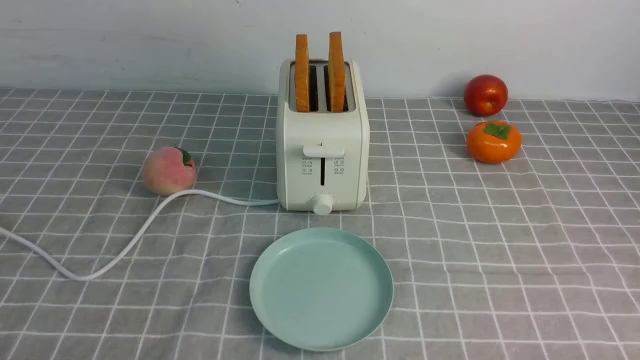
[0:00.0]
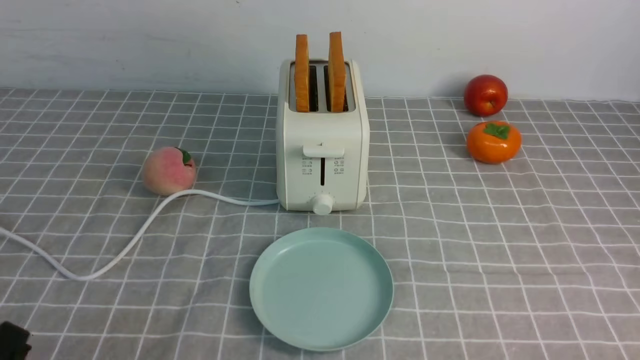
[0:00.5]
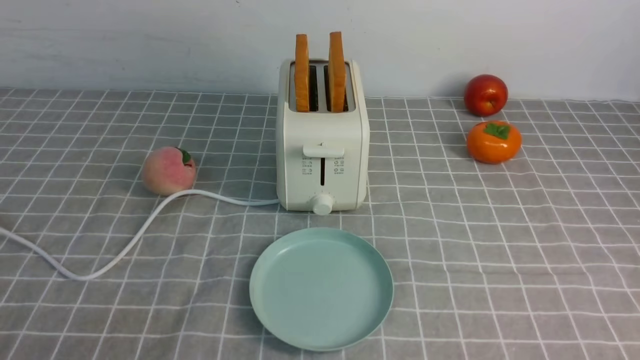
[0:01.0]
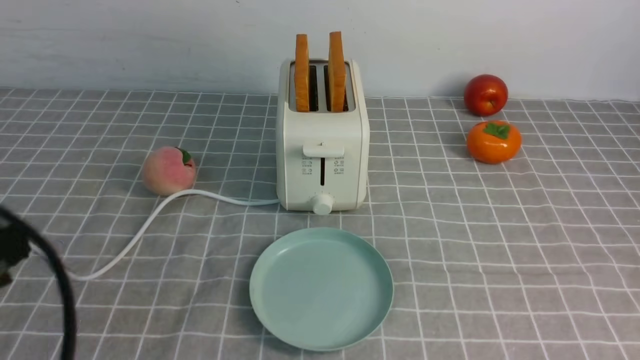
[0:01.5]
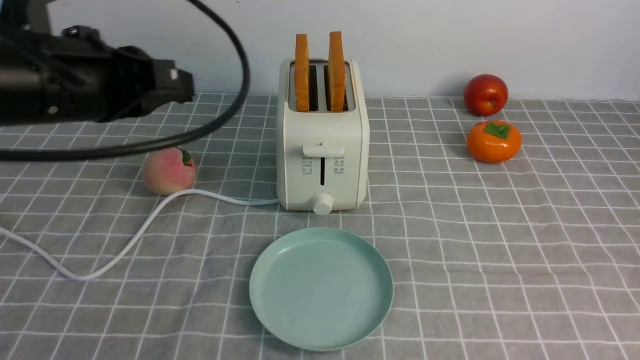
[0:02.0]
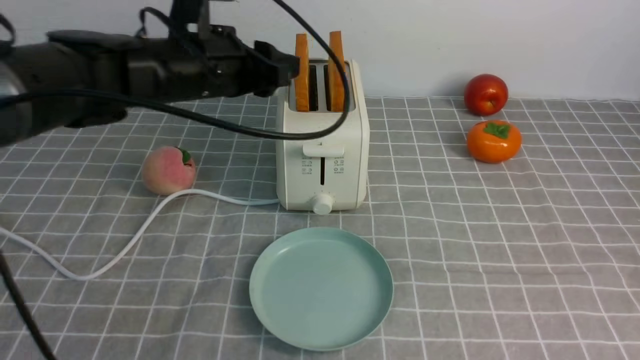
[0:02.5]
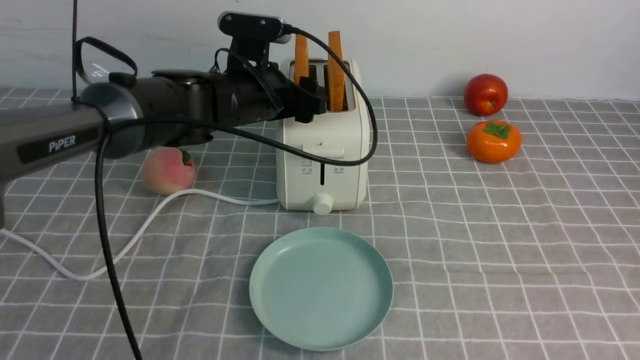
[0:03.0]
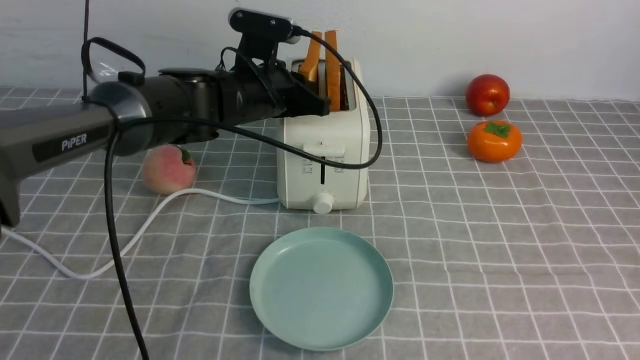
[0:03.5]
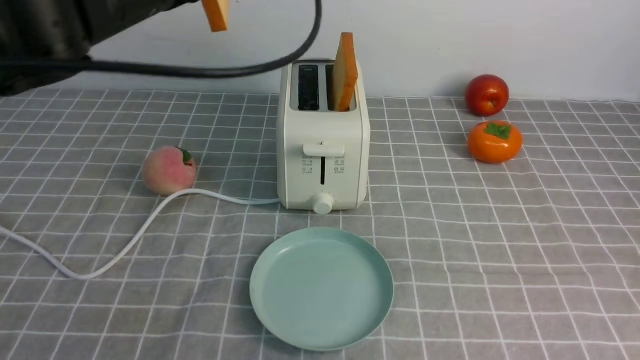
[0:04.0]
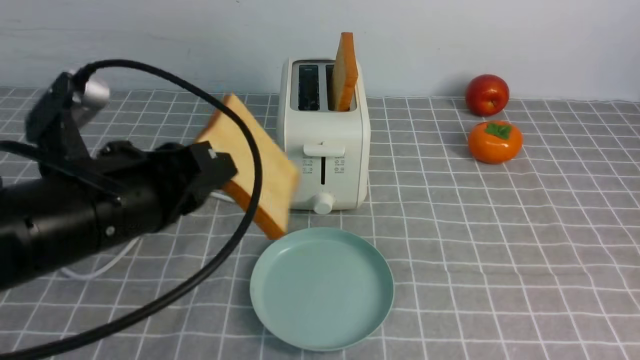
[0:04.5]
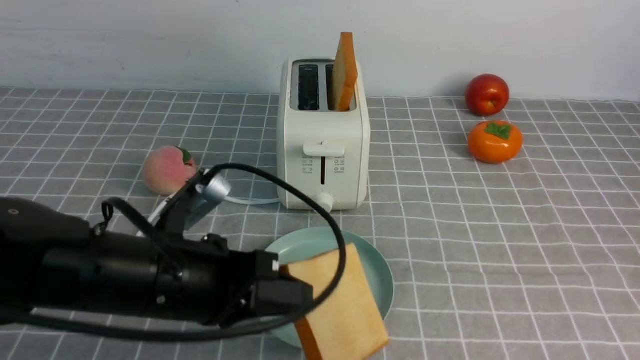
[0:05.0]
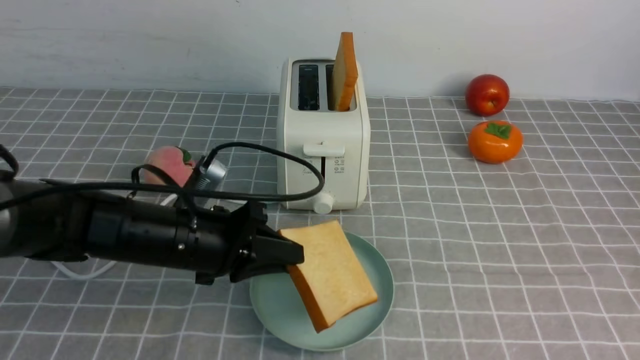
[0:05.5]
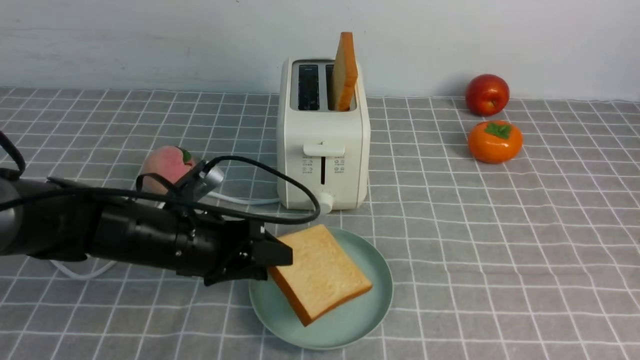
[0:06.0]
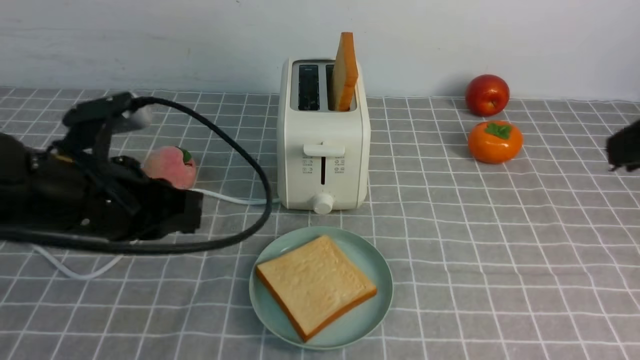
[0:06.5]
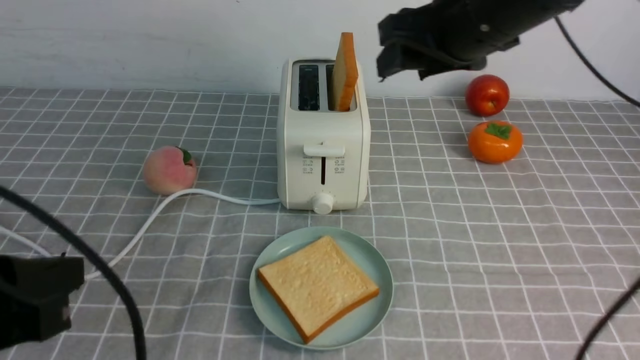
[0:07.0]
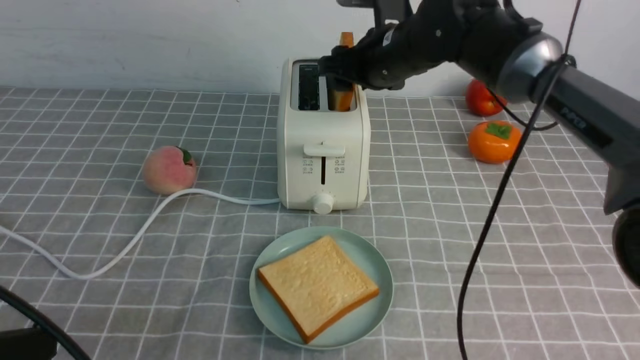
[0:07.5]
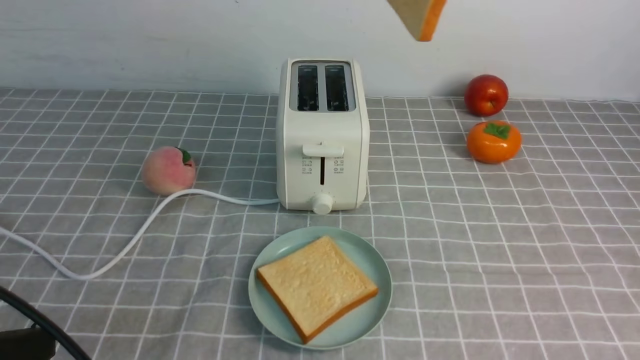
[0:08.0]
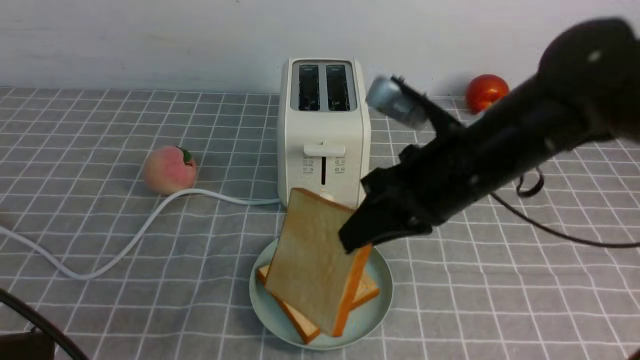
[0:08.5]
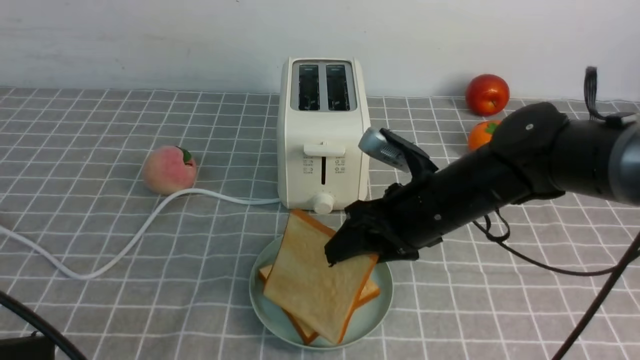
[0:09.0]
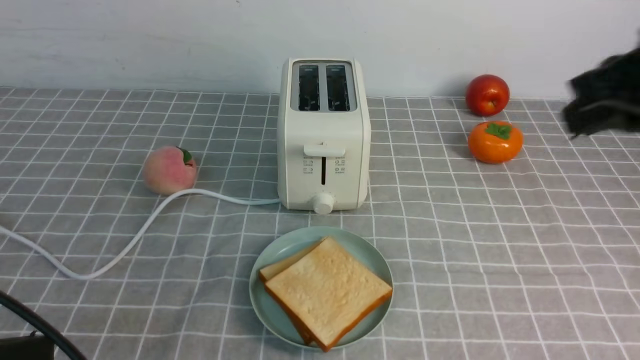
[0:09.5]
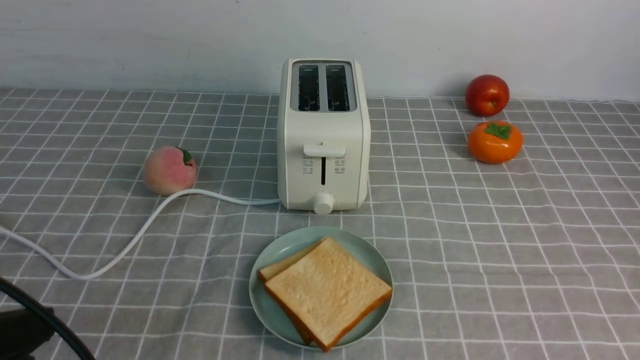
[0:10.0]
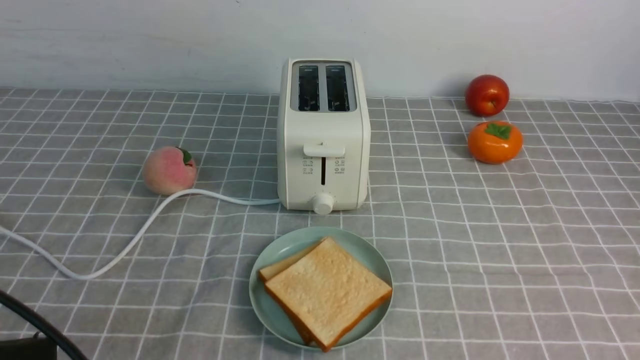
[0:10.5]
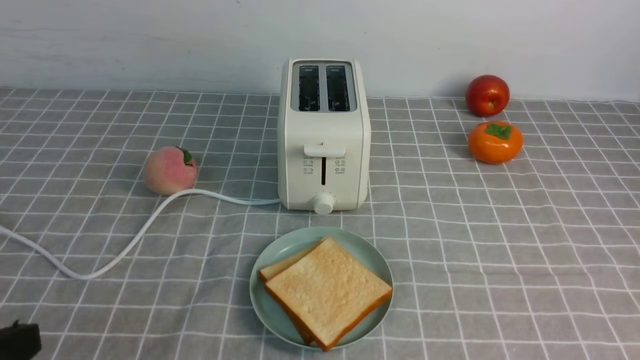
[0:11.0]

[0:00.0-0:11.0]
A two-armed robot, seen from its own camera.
Task of the whole recording: take toasted bread from bread machine on grey coffee table place on plate.
Step, 0:00.0 to 0:03.5: use the left arm to take out a slice of bread.
Step, 0:04.0 to 0:06.0: use the left arm to put a slice of bread into the empty plate.
Step, 0:06.5 to 0:07.5: use the right arm to take out a slice of bread.
Step, 0:08.0 to 0:09.0: use the right arm to put a slice of bread into the plate.
0:02.0 to 0:03.5: The left gripper heads forward, to the right and downward, covering roughly 25 cm, and opens.
0:03.5 to 0:05.5: The left gripper shifts roughly 15 cm backward and downward.
0:05.5 to 0:07.5: The right gripper shifts some 40 cm forward and to the left, and opens its fingers; the left gripper goes approximately 25 cm backward, upward and to the left, and opens, then closes once more.
0:07.5 to 0:09.0: The right gripper heads backward and downward, covering approximately 15 cm, and closes and opens again.
0:09.0 to 0:11.0: The right gripper goes approximately 35 cm backward and to the right, and closes its fingers.
